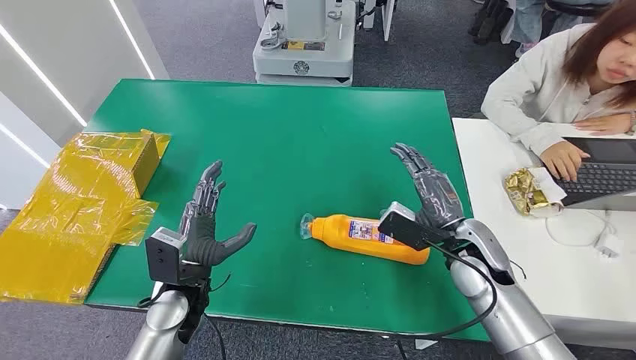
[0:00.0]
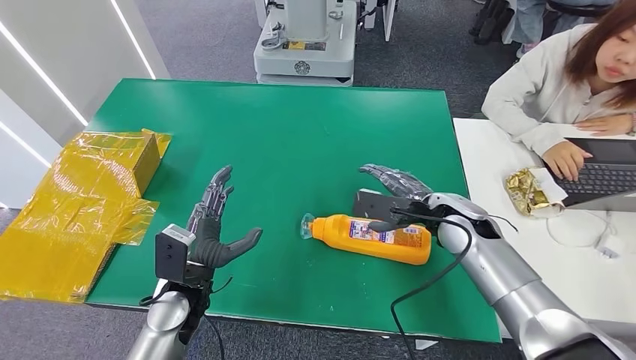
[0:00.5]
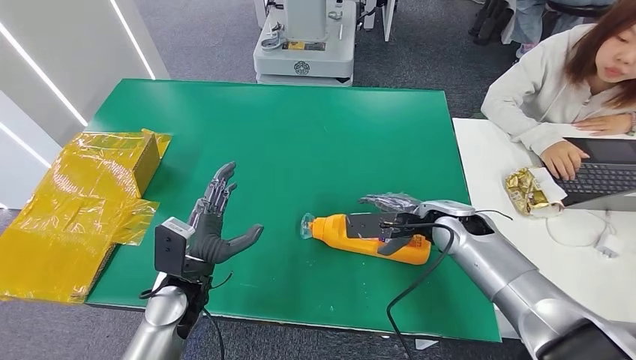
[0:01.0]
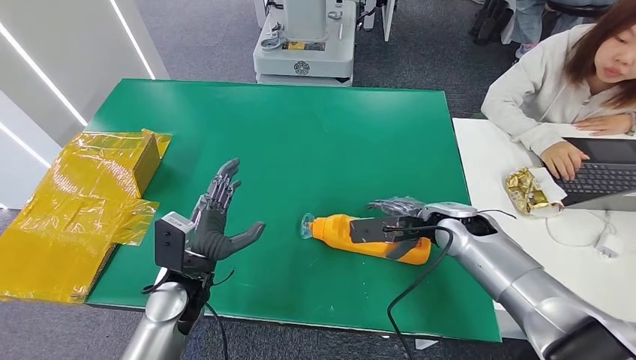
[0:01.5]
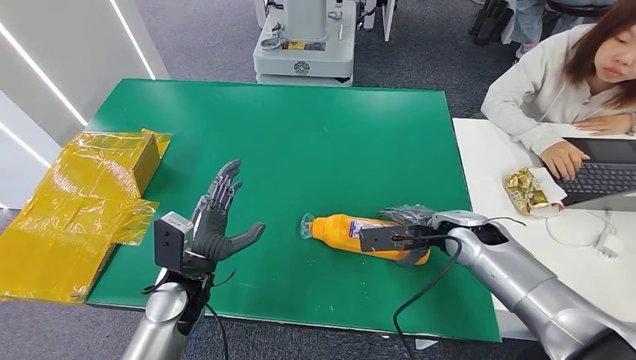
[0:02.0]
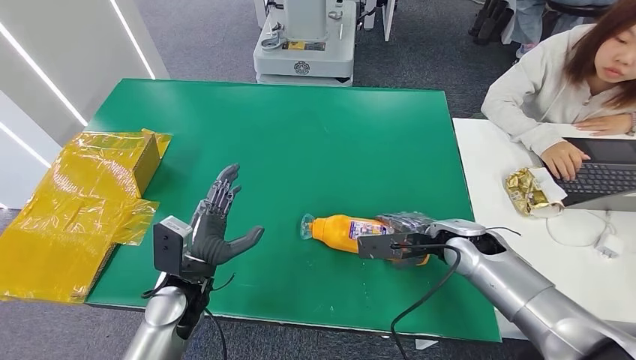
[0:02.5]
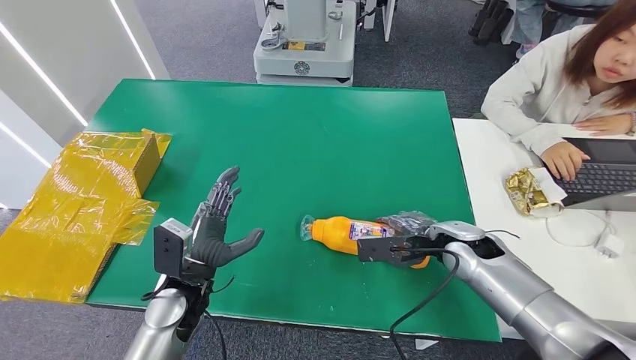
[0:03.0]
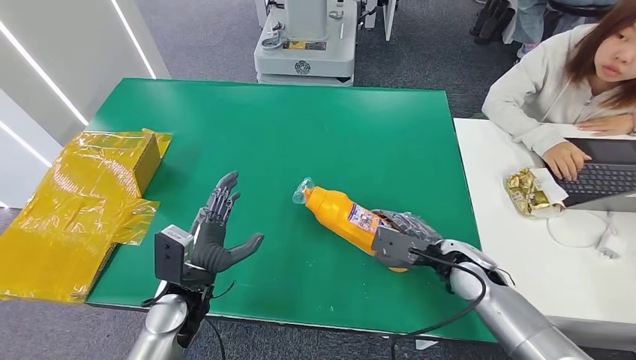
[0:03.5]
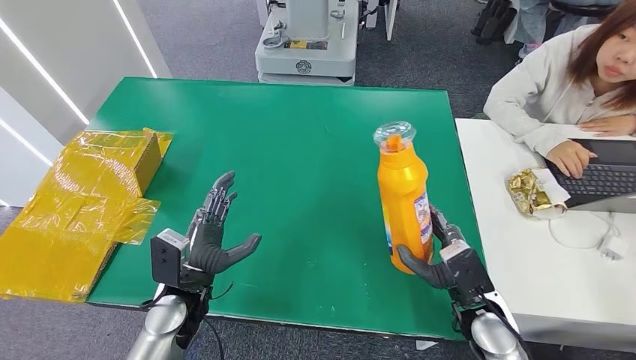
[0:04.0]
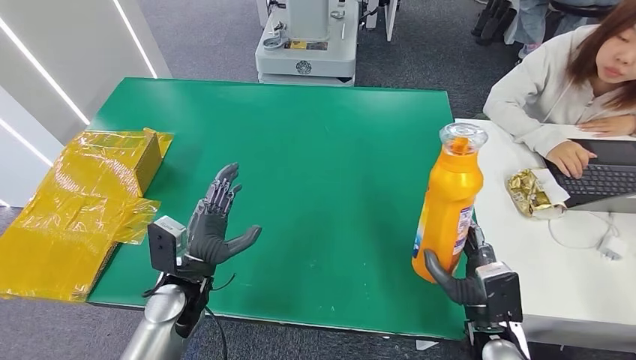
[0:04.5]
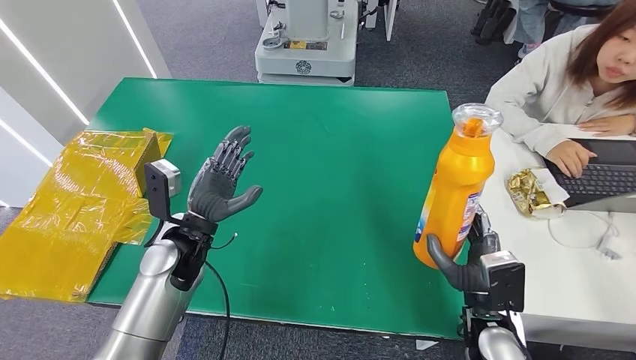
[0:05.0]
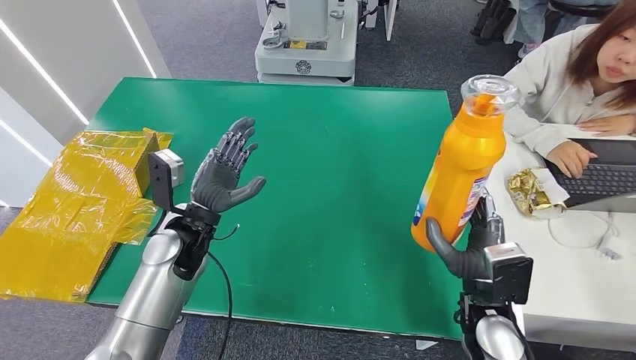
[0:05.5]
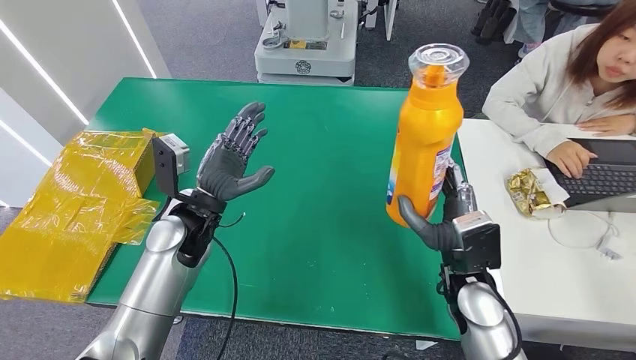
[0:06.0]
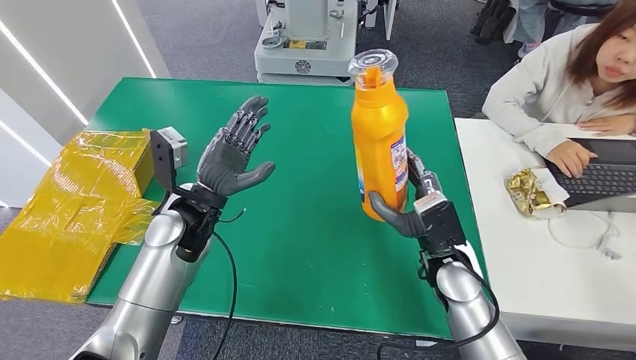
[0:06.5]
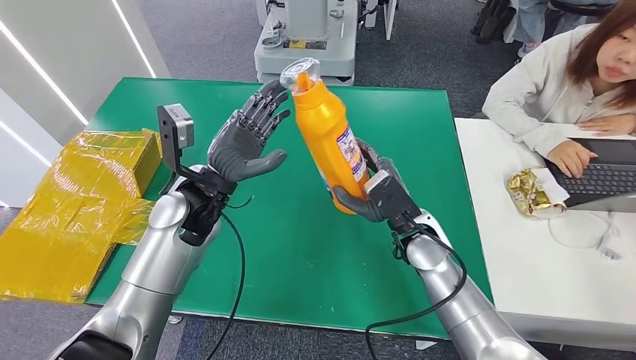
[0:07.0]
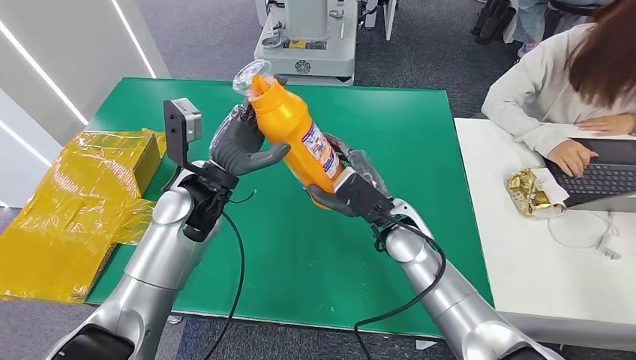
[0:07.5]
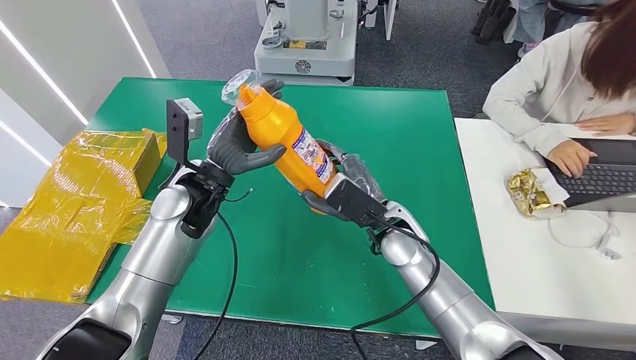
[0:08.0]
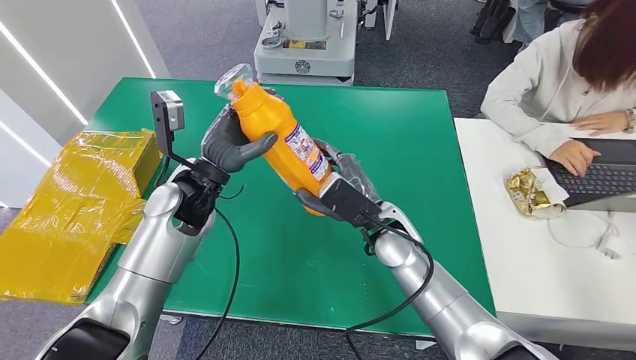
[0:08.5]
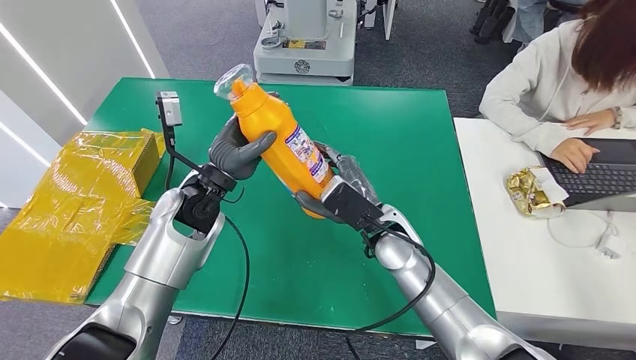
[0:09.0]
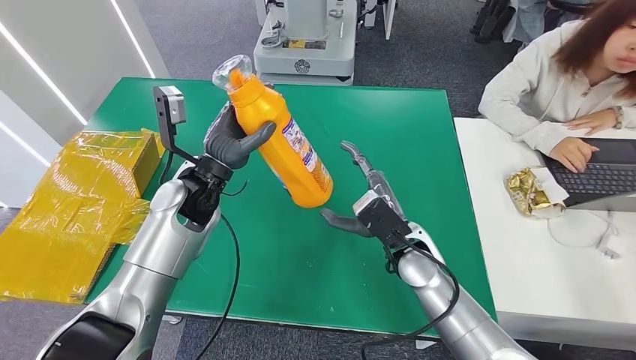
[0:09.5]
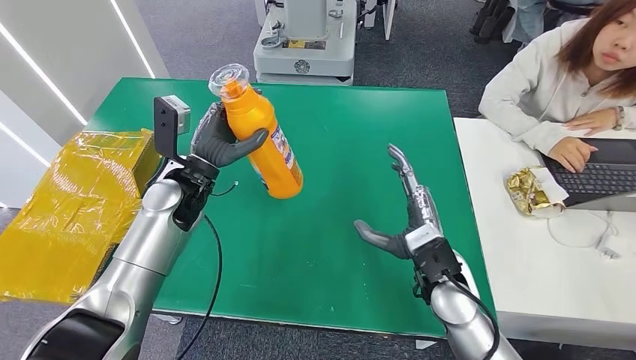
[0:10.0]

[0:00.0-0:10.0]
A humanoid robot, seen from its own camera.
Step, 0:00.0 to 0:08.5: Pick up the bottle from the table.
0:02.0 to 0:04.0: The right hand moves backward and downward, about 15 cm.
0:04.0 to 0:06.0: The right hand moves upward, approximately 5 cm. Meanwhile the left hand heads forward and upward, covering some 15 cm.

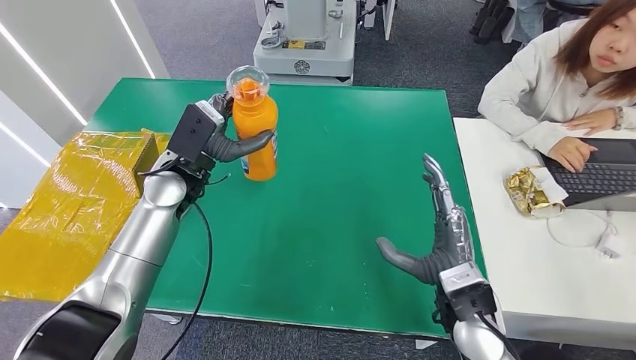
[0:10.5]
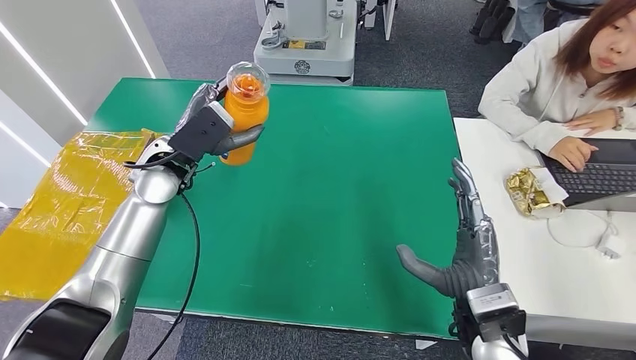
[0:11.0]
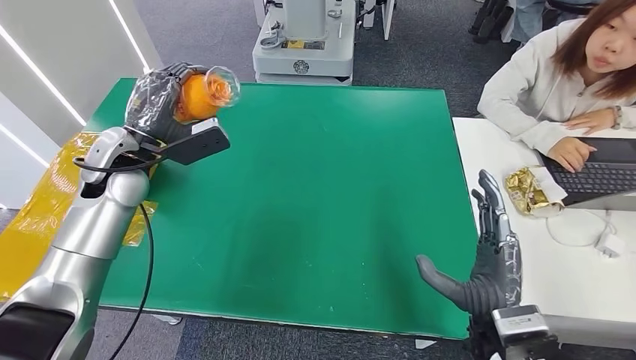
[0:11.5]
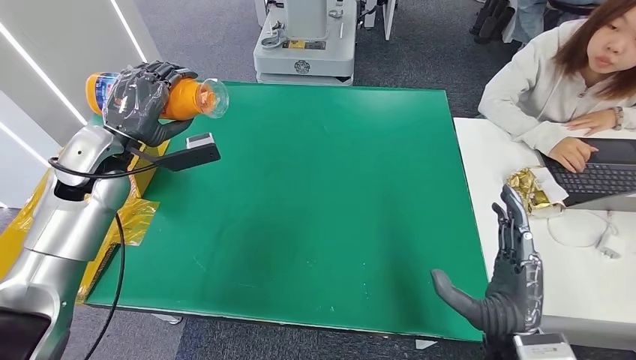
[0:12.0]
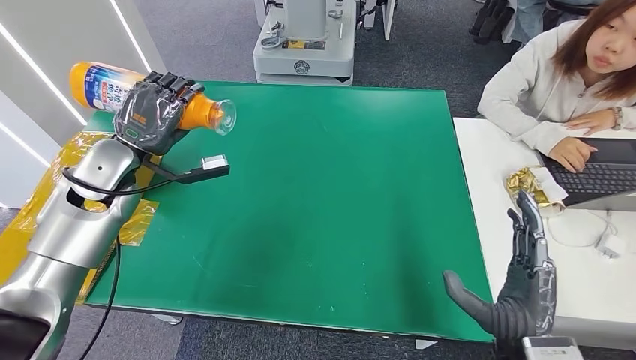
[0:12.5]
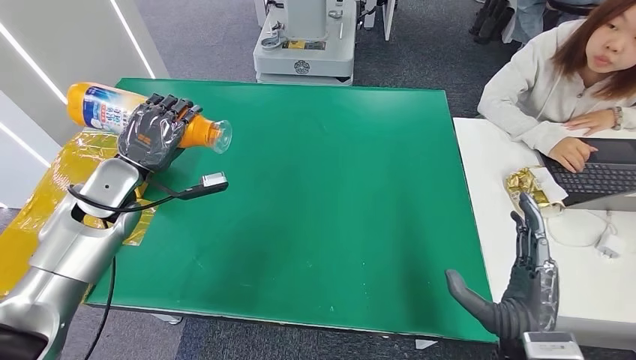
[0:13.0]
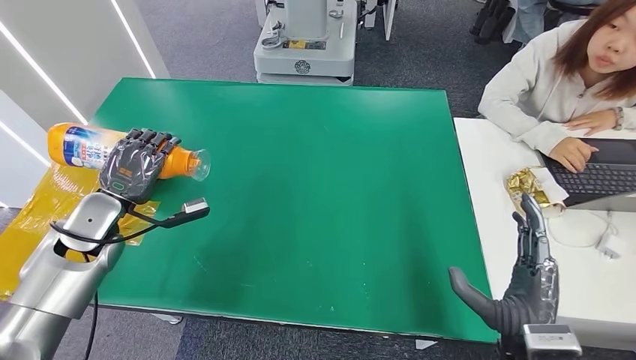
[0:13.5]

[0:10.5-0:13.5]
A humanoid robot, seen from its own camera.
Step, 0:10.5 to 0:13.5: Turn the bottle to the front side.
0:12.0 to 0:13.5: The left hand travels downward and backward by about 10 cm.

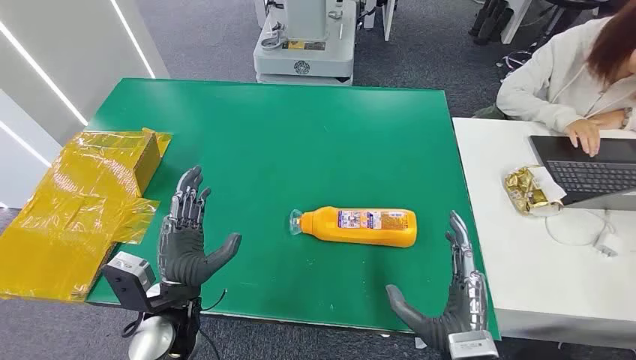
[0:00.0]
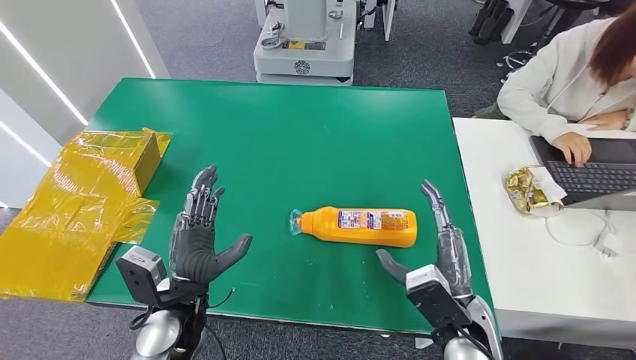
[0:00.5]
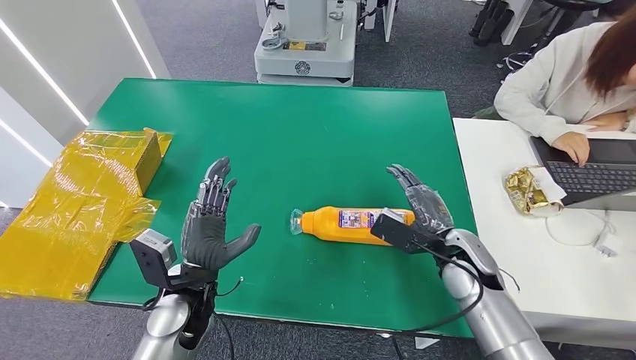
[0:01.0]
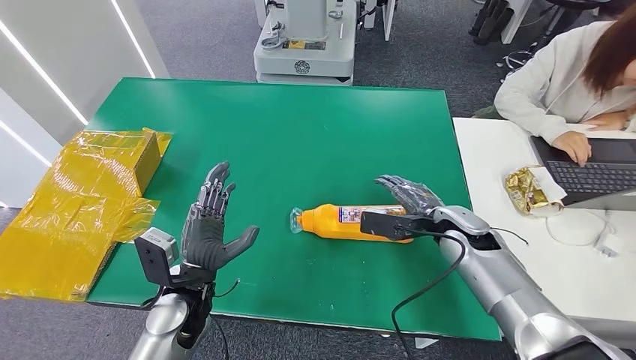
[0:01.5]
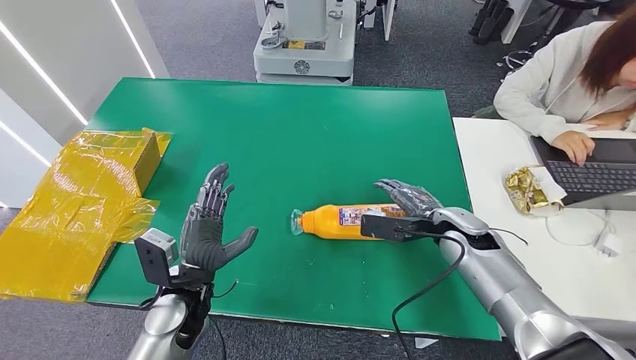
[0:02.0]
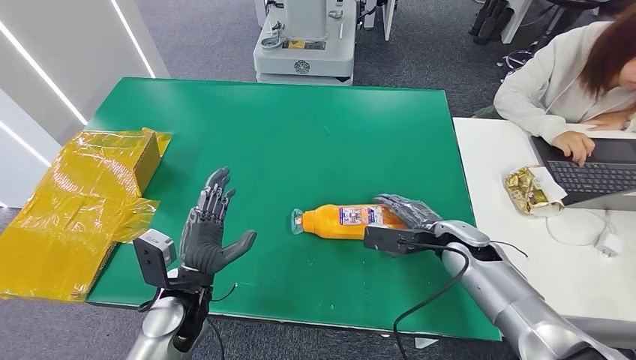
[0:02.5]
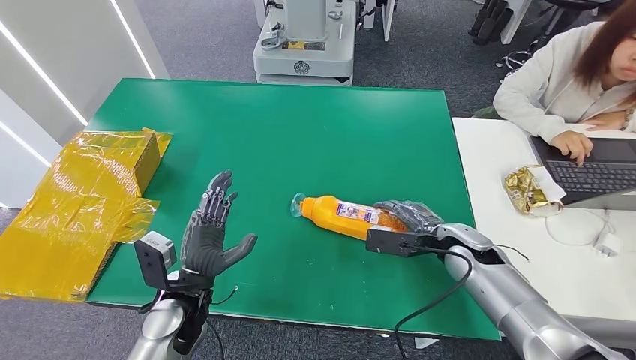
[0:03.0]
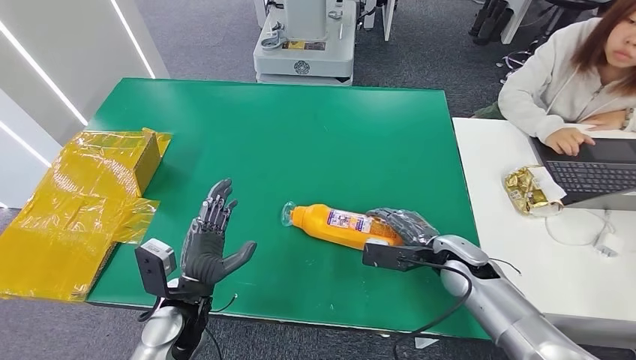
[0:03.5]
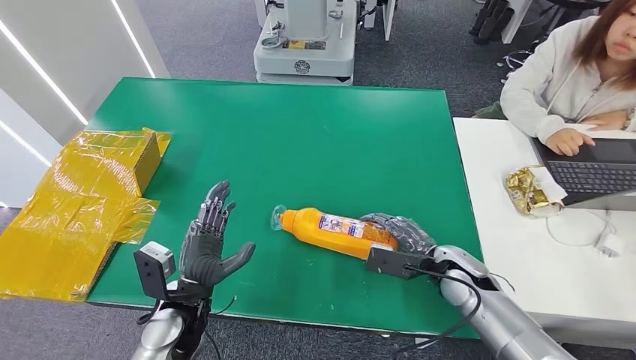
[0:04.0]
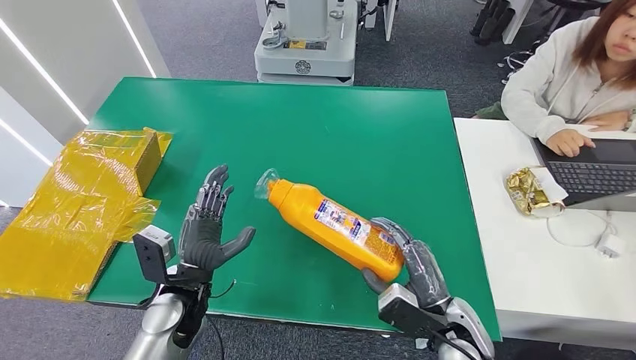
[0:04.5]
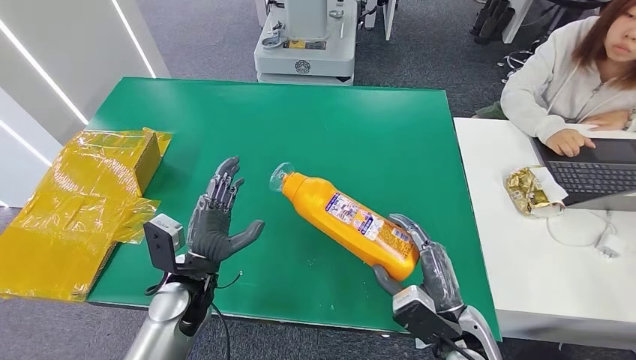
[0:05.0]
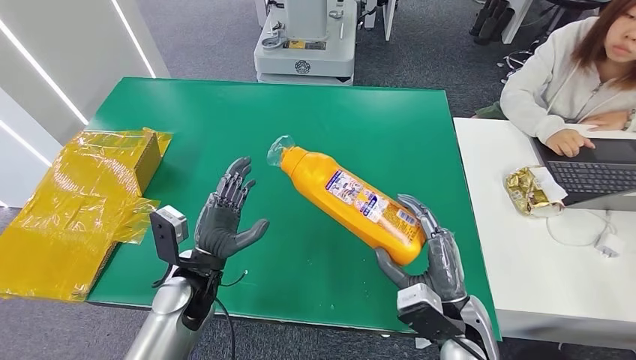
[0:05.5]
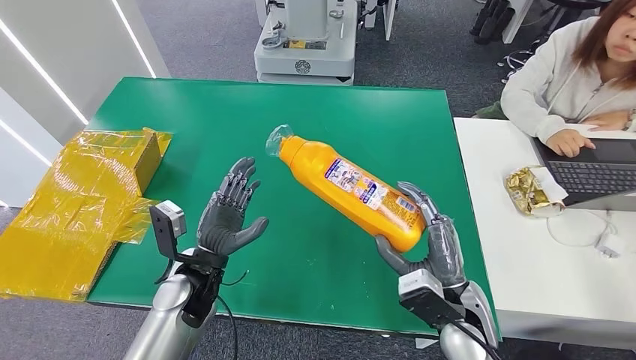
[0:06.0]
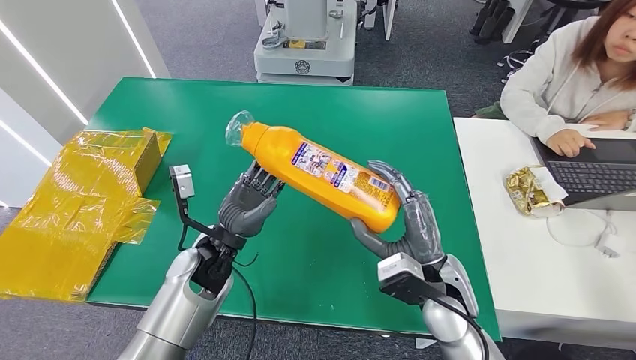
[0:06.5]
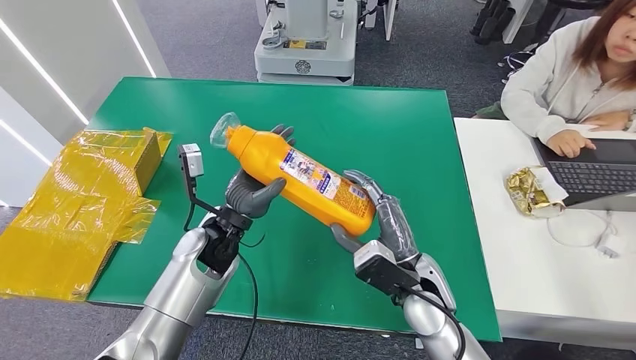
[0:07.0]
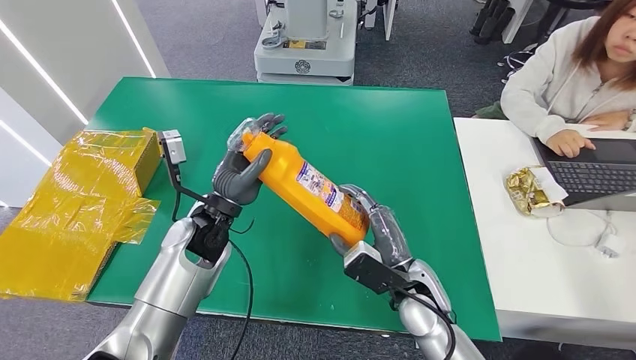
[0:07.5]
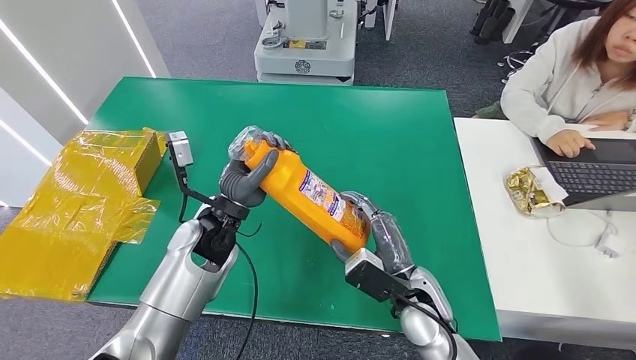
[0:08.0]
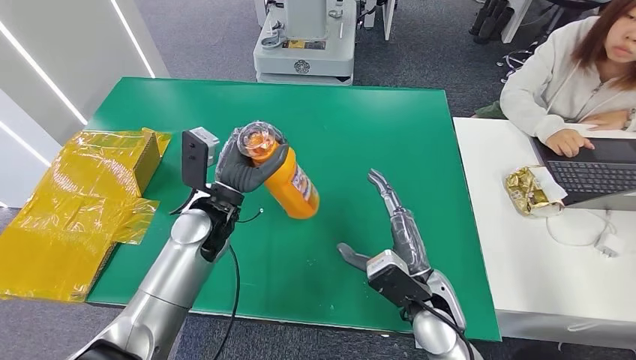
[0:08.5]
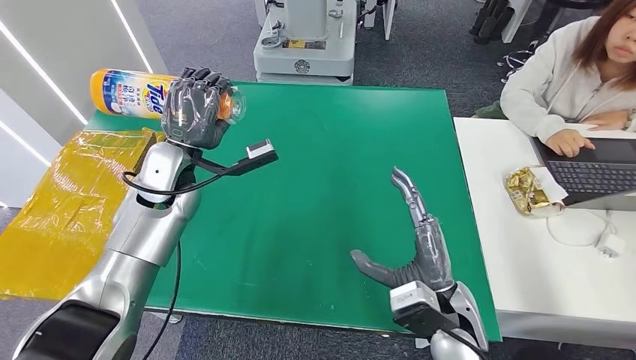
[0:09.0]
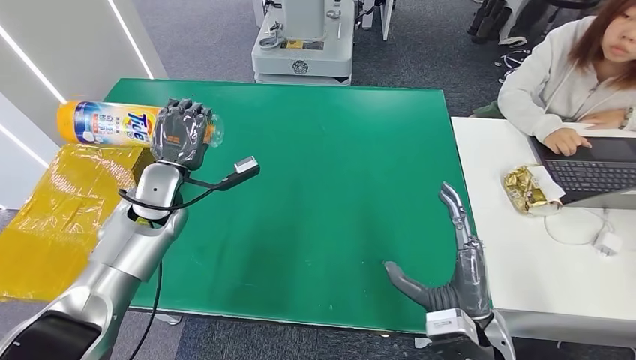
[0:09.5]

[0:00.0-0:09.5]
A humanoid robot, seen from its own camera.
Step, 0:00.0 to 0:04.5: Pick up the bottle from the table.
0:02.0 to 0:04.0: The right hand is displaced backward and downward by about 5 cm.
0:04.0 to 0:05.5: The right hand is displaced backward by roughly 10 cm. Meanwhile the left hand moves roughly 5 cm.
0:05.5 to 0:07.5: The left hand goes approximately 10 cm forward and upward; the right hand moves forward and to the left, some 10 cm.
